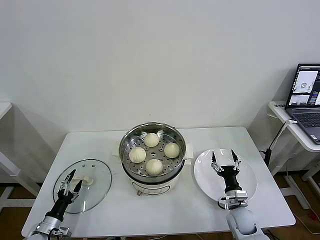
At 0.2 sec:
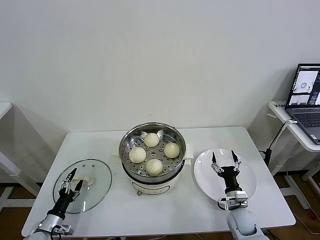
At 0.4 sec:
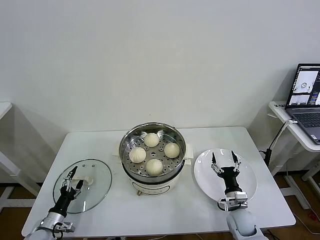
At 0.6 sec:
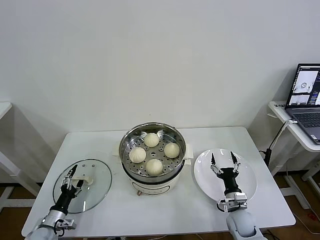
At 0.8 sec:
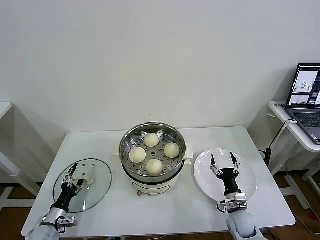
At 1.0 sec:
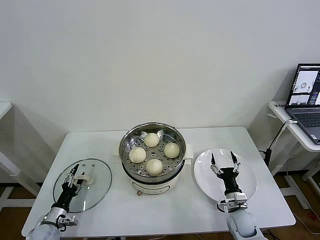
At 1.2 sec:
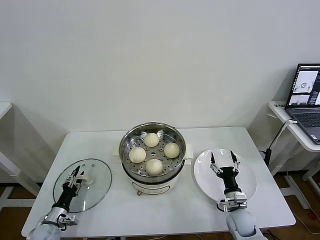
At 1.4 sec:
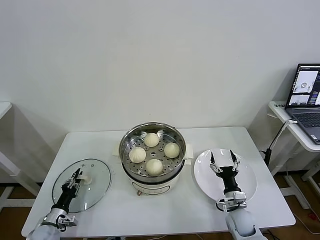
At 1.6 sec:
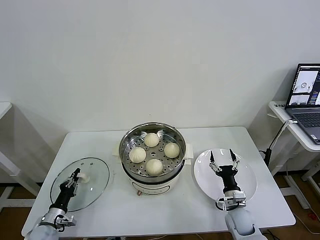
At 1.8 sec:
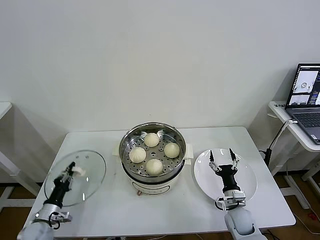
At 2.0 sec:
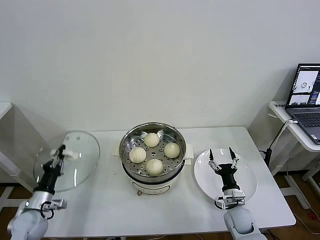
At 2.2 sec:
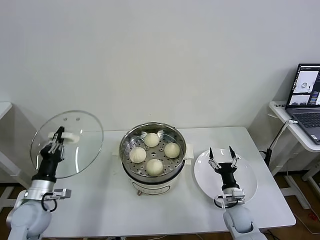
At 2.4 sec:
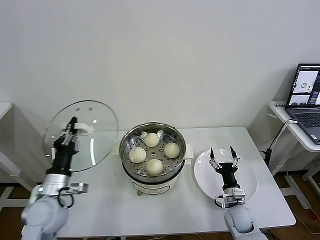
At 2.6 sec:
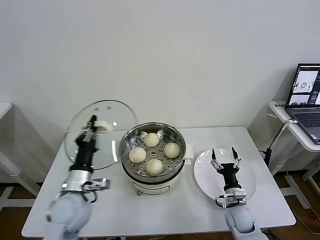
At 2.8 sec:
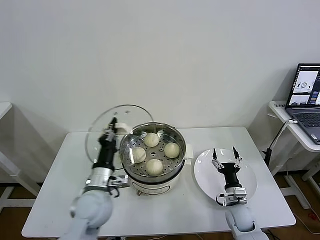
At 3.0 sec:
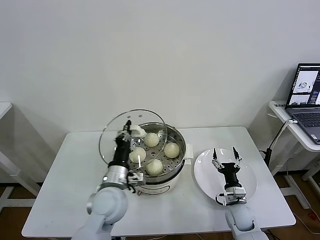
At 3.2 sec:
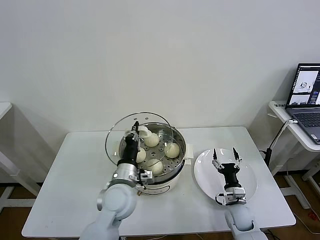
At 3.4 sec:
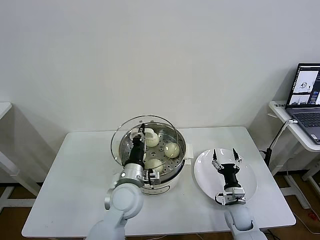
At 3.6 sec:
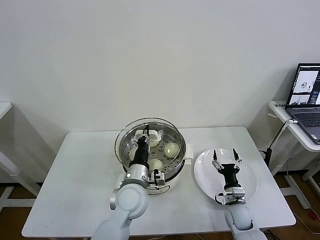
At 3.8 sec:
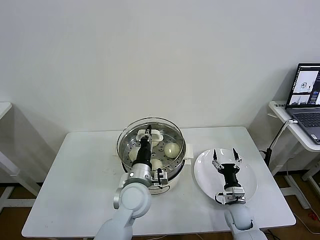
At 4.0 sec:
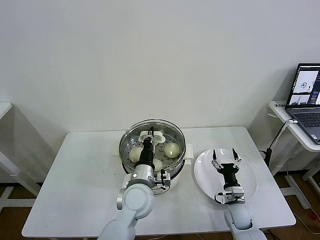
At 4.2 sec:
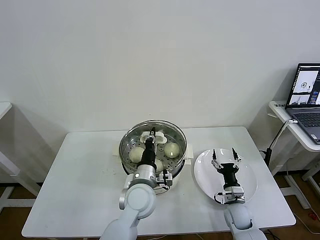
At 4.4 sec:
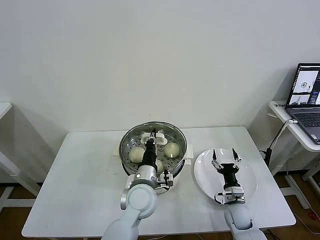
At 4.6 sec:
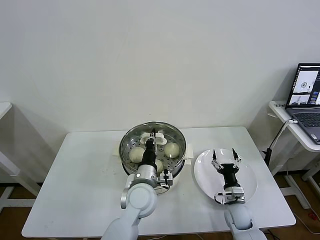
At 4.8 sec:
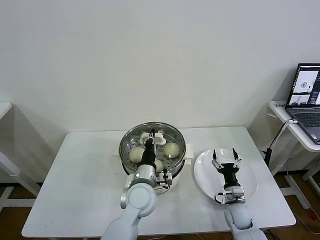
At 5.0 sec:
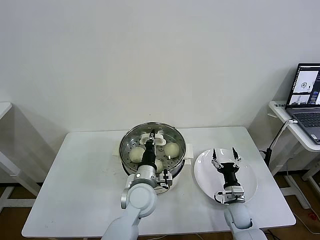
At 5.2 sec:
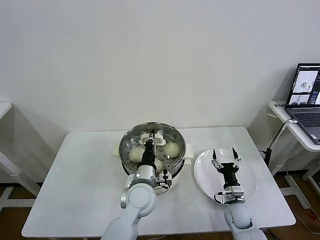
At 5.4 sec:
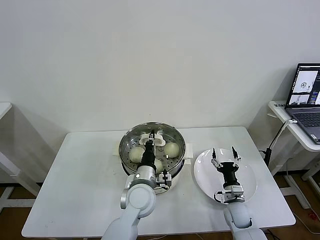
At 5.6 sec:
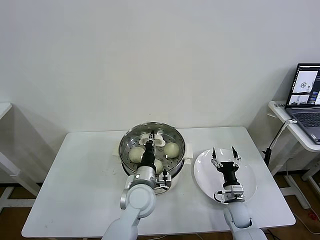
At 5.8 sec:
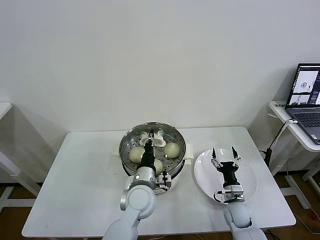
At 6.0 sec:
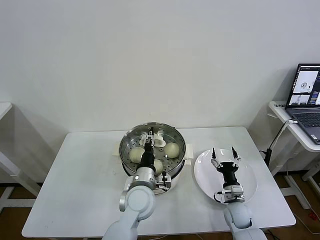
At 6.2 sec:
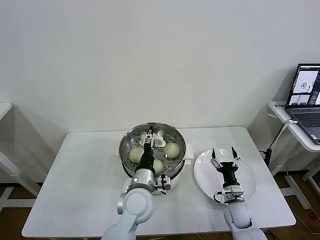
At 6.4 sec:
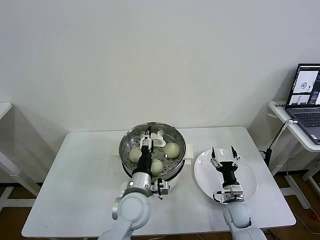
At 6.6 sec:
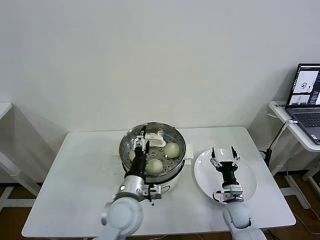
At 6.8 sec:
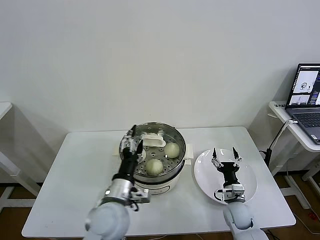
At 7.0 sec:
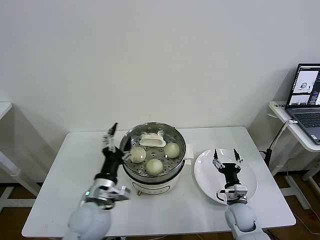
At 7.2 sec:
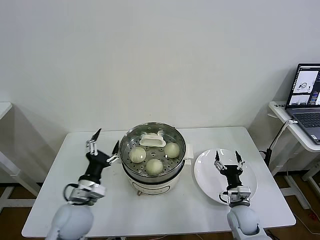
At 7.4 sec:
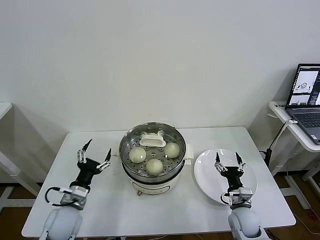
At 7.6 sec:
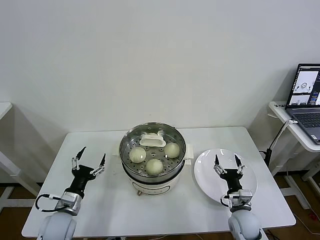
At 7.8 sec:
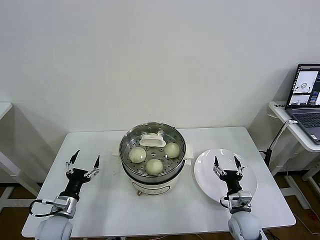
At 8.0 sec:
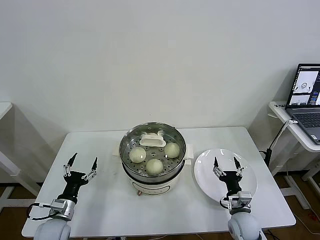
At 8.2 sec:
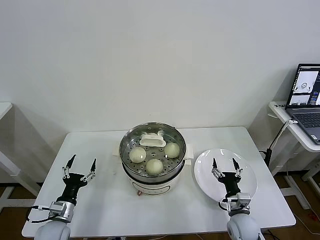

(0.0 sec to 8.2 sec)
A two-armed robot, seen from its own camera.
Task of the whole recording: take steamed baozi put them in steamer then cover it.
Step, 2.0 sec - 6.0 sec: Place the pot lid on the steamer with left gripper.
0.0 sec - 1.6 sec: The left gripper closes up.
1.6 sec - 3.2 sec: The left gripper heads to the right and upward, covering roughly 35 cm.
3.2 sec - 5.0 sec: The left gripper heads to the right, covering about 5 cm.
5.0 sec - 6.6 sec: The left gripper changes place by about 5 cm, and opens up.
6.6 sec - 8.2 sec: The right gripper goes roughly 5 cm backward; the left gripper moves to the left and downward, roughly 30 cm.
